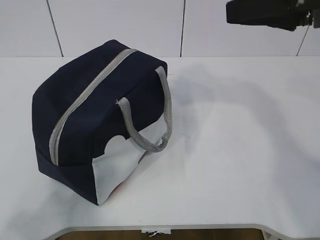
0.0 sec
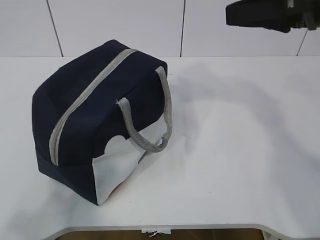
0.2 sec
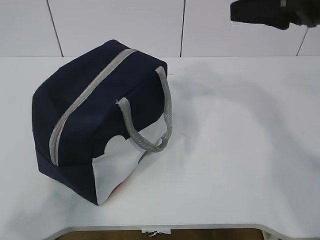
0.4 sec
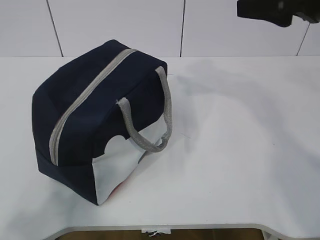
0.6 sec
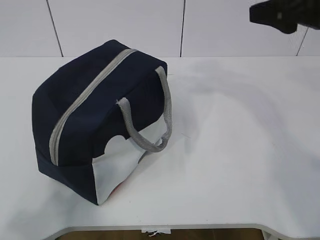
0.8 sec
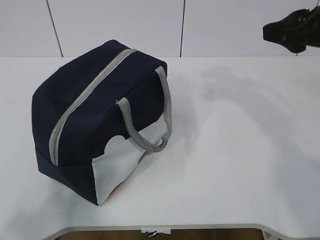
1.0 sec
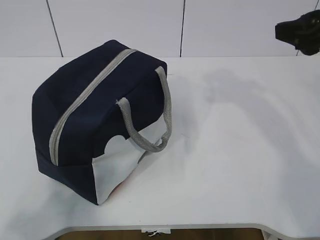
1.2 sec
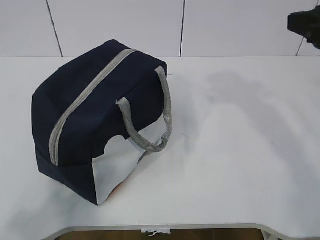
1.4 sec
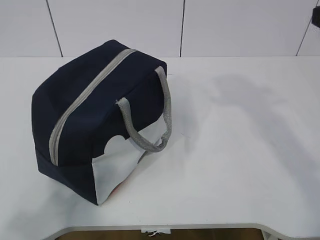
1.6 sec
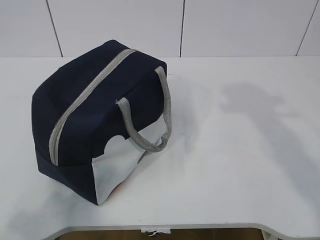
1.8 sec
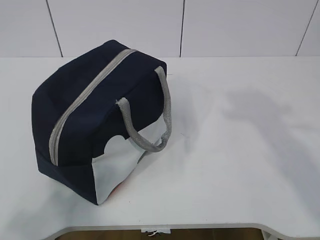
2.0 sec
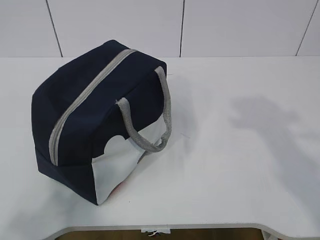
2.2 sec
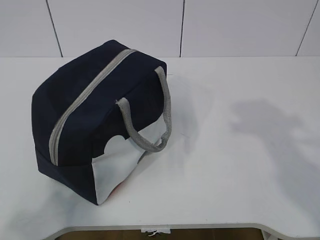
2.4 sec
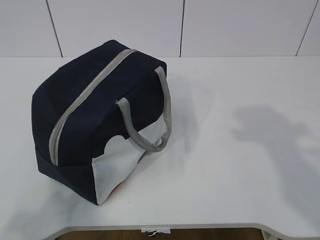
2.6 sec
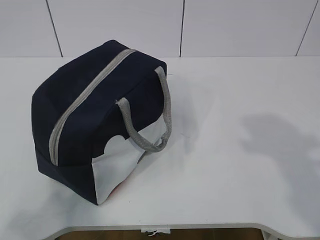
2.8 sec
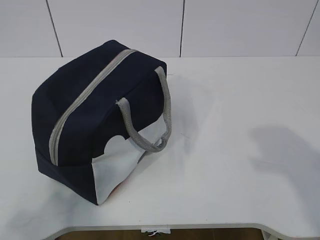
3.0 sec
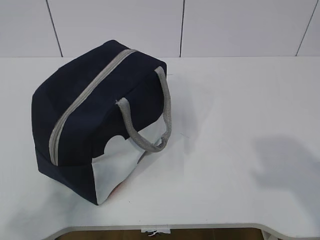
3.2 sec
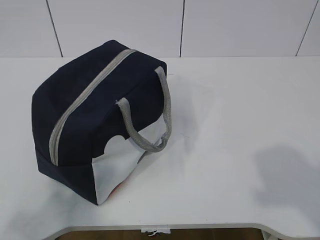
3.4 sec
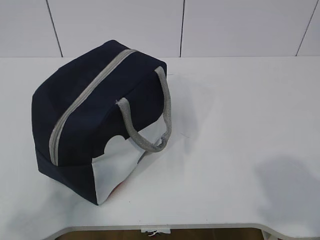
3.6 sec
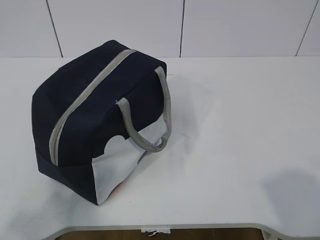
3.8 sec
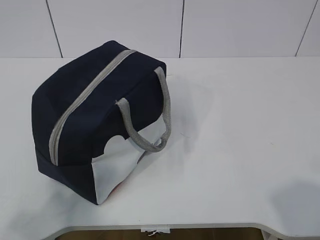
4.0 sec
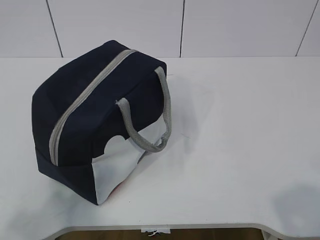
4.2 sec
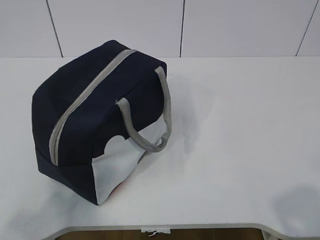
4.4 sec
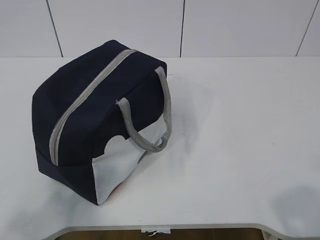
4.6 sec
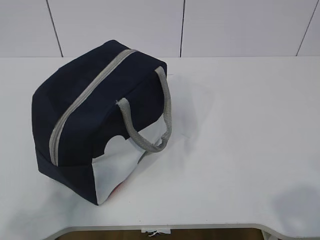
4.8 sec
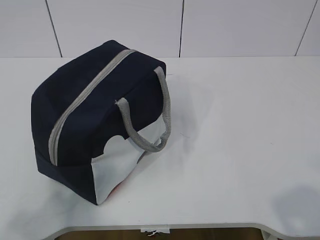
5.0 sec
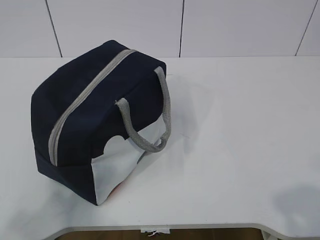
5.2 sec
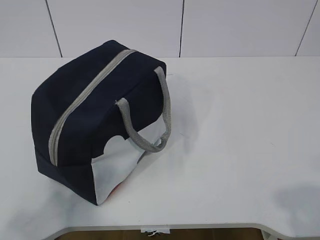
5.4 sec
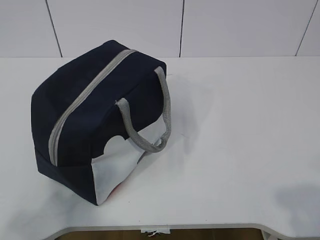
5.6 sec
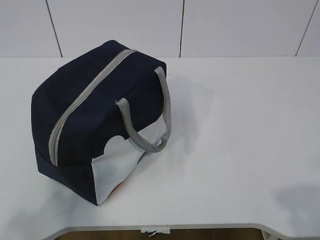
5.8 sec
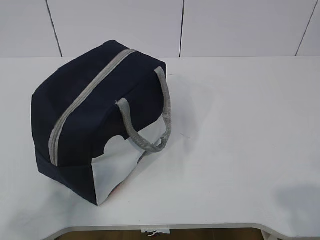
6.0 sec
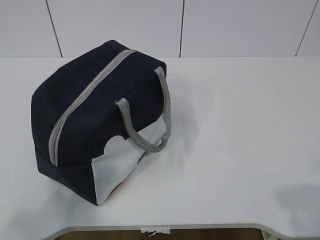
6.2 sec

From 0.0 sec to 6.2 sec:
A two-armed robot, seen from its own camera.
From 0.0 sec to 1.6 sec: The right gripper travels to the right by about 5 cm.
From 1.6 sec to 3.2 sec: The right gripper shifts some 20 cm backward.

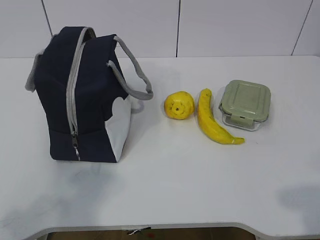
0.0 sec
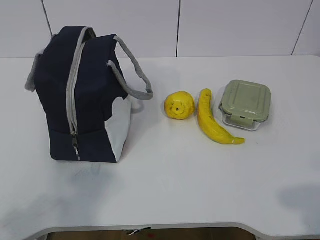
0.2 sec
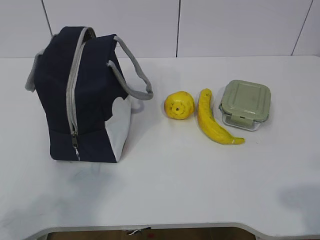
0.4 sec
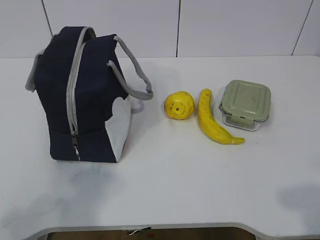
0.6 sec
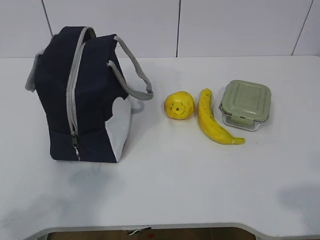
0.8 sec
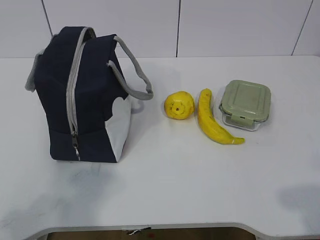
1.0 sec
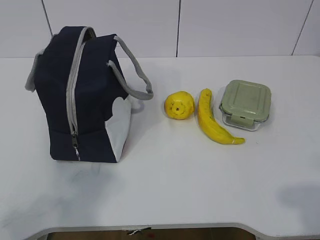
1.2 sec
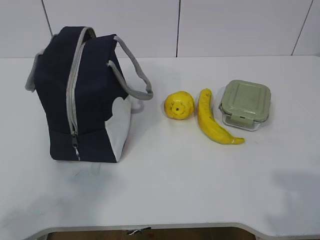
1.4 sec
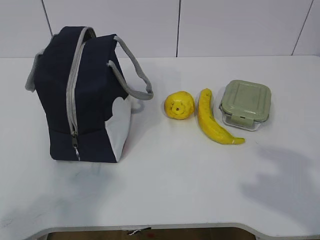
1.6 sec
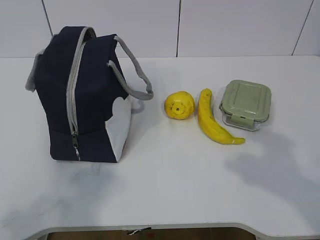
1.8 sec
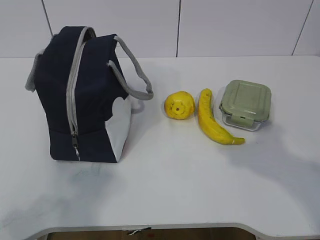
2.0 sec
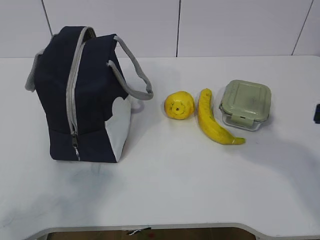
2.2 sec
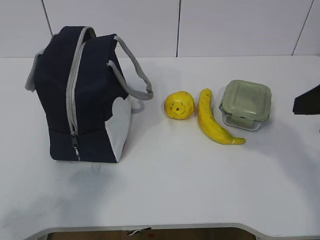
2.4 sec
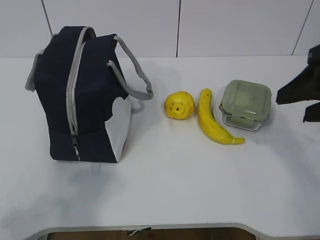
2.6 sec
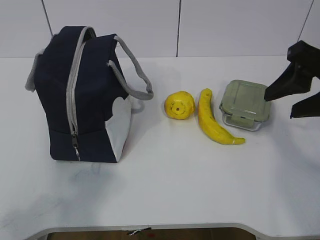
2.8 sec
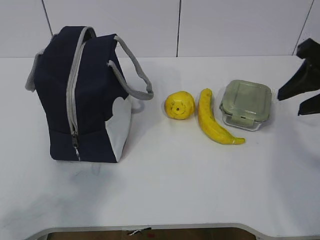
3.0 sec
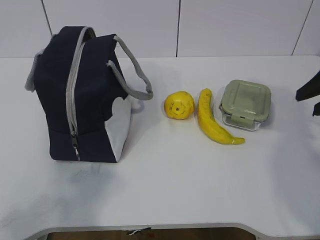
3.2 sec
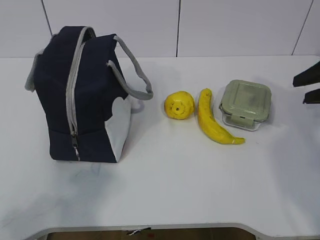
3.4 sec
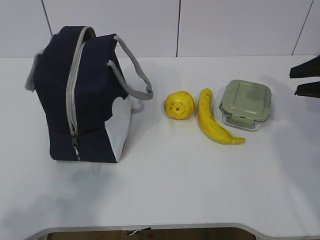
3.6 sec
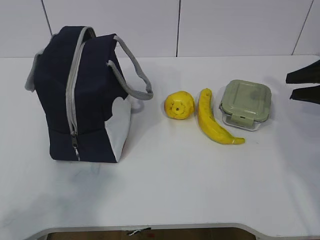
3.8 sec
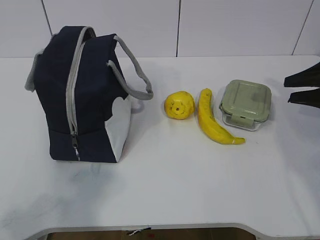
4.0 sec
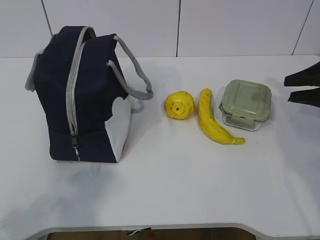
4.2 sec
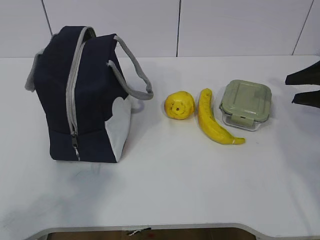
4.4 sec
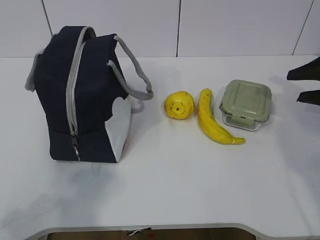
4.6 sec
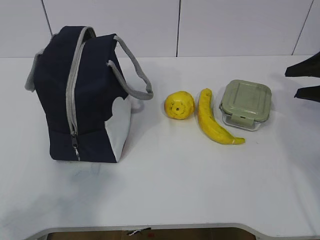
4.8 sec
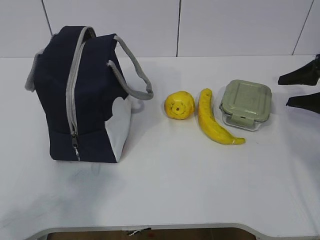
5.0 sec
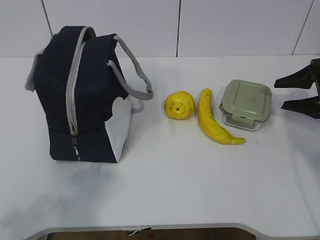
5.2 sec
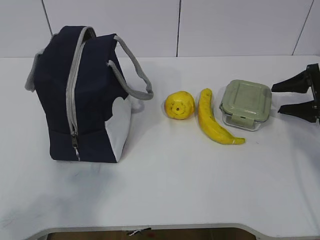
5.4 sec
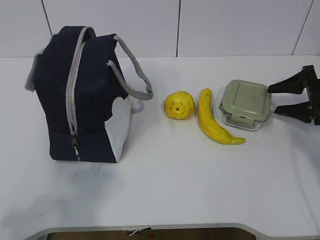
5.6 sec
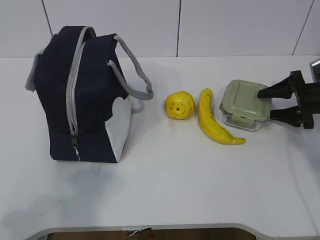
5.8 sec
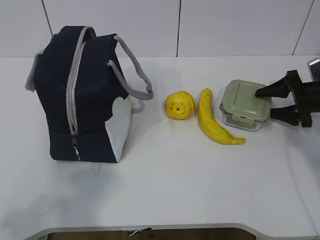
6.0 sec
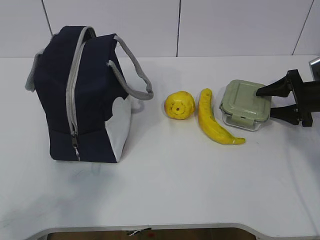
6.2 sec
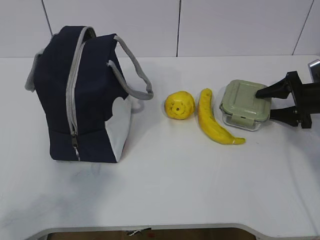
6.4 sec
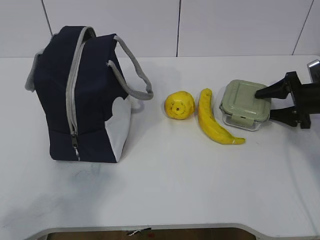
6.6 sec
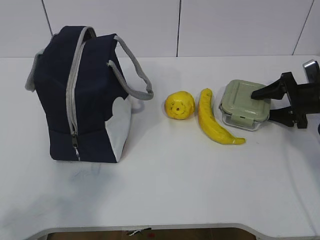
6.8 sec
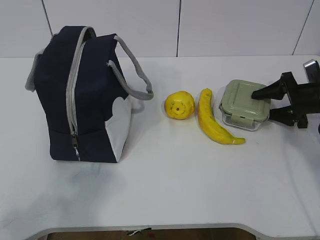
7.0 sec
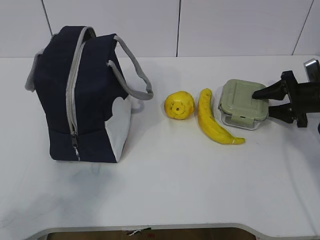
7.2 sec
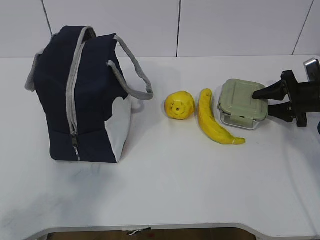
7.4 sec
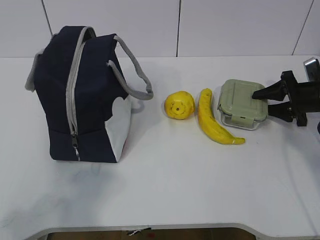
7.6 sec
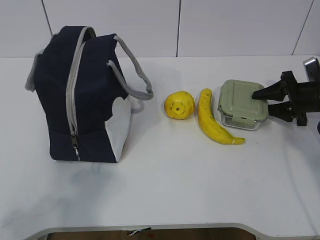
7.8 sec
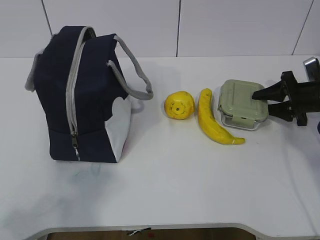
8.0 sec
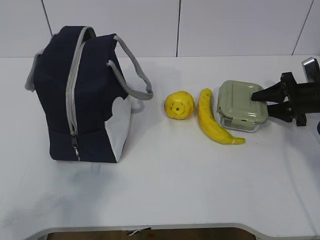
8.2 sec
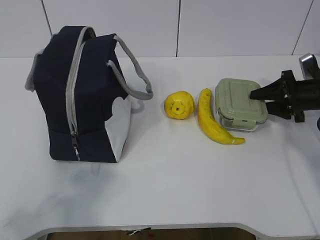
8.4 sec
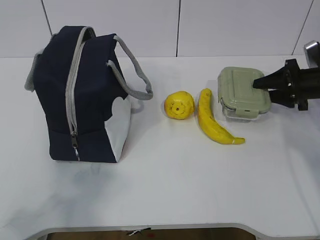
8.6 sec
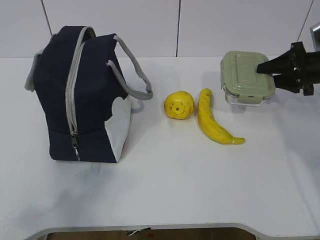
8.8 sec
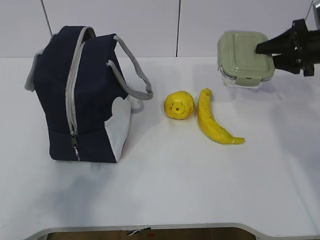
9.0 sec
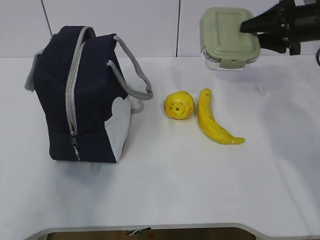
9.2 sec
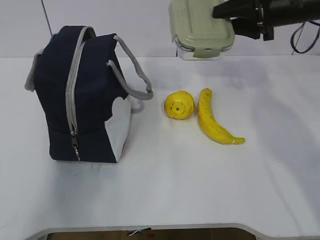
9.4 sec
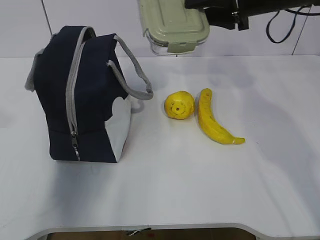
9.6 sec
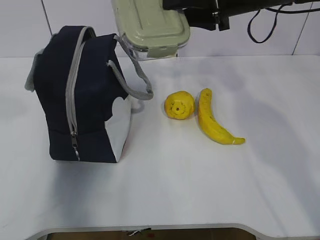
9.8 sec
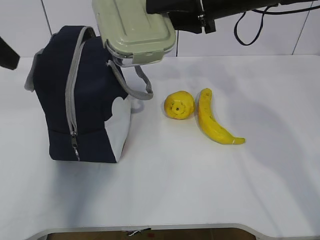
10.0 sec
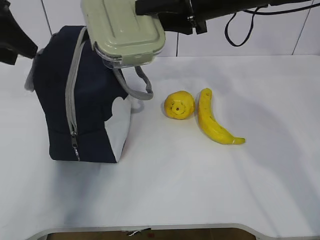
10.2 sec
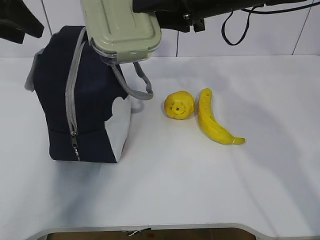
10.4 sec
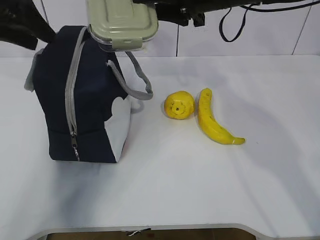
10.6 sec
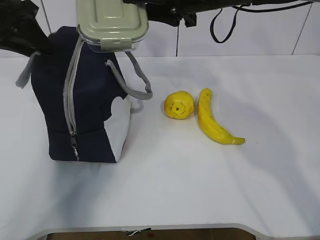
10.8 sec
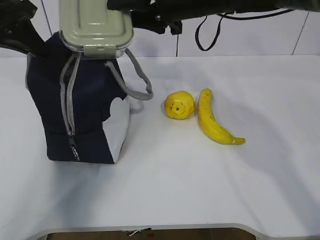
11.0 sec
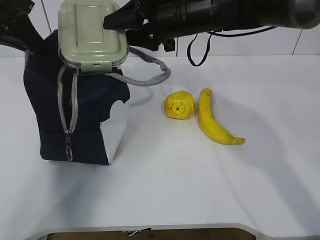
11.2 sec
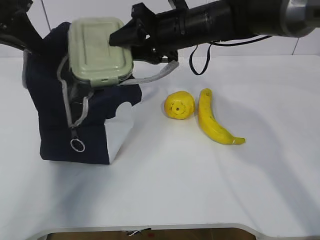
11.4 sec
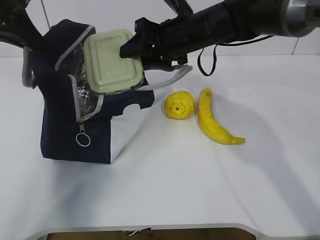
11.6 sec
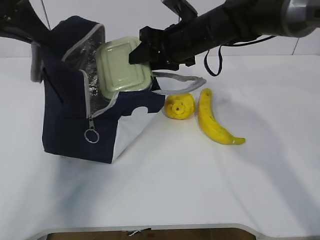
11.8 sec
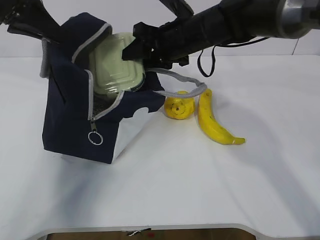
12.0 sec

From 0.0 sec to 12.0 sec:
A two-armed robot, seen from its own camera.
Step, from 0.0 sec to 7.8 sec: Grasp the box with the right gripper.
From 1.6 sec to 3.0 sec: The right gripper travels forward by about 25 cm.
From 3.0 sec to 4.4 sec: The right gripper travels to the right, downward and forward by some 15 cm.
From 4.4 sec to 6.0 sec: The right gripper is displaced downward and forward by approximately 10 cm.
From 6.0 sec to 7.6 sec: Neither gripper changes place.
From 7.6 sec to 9.0 sec: The right gripper shifts about 10 cm upward.
From 9.0 sec to 10.4 sec: The right gripper goes about 25 cm to the left and upward, while the left gripper shifts some 35 cm forward, and opens.
From 10.4 sec to 12.0 sec: The right gripper is displaced downward and to the left by some 10 cm; the left gripper closes.

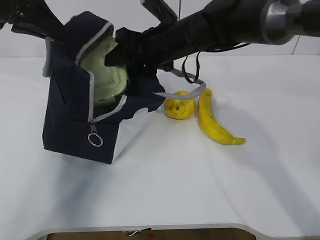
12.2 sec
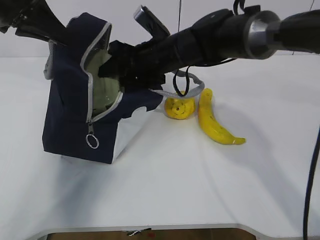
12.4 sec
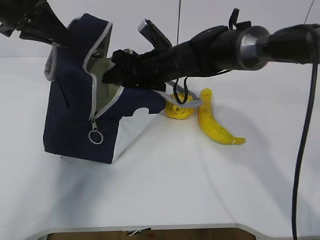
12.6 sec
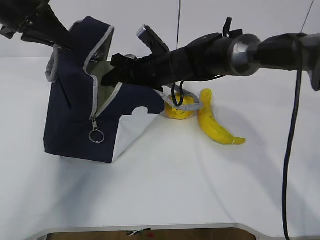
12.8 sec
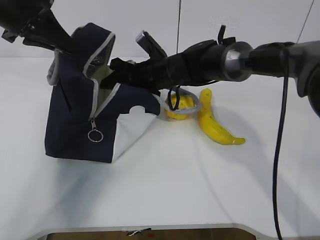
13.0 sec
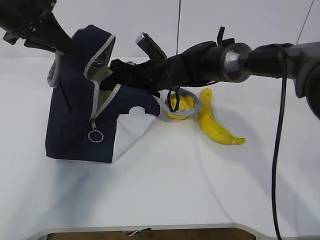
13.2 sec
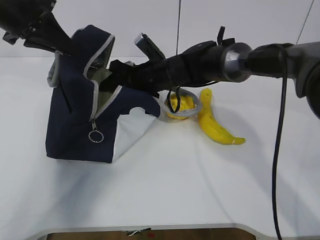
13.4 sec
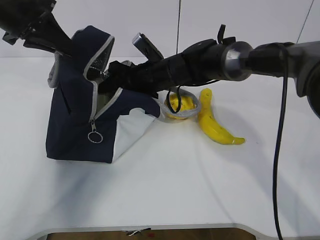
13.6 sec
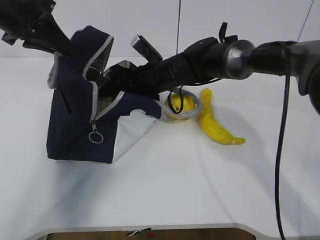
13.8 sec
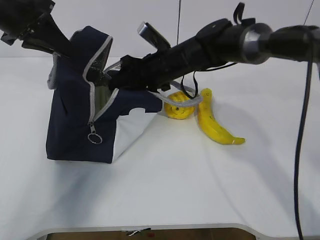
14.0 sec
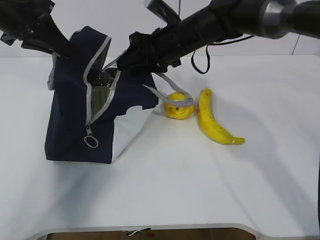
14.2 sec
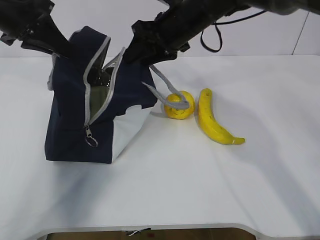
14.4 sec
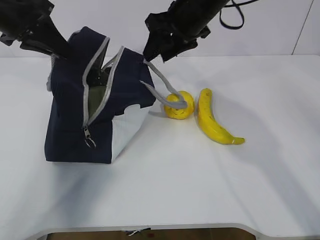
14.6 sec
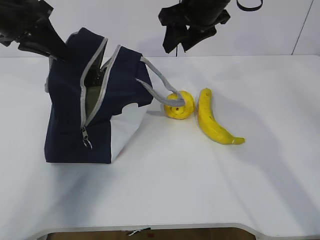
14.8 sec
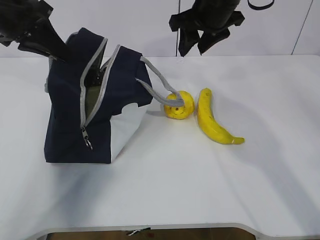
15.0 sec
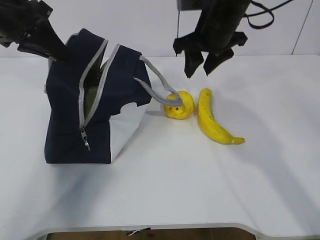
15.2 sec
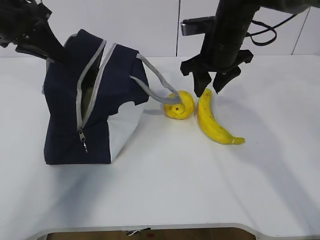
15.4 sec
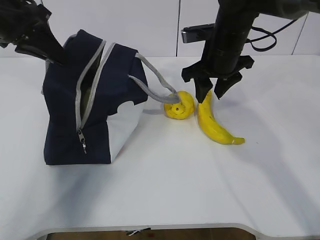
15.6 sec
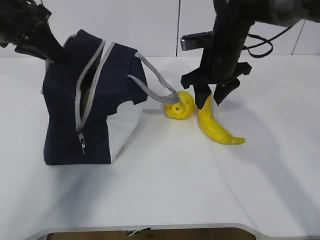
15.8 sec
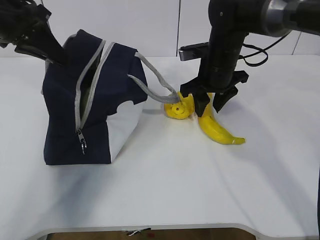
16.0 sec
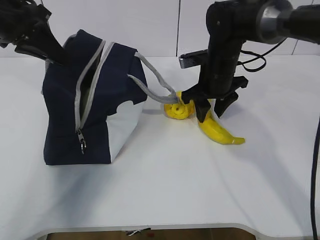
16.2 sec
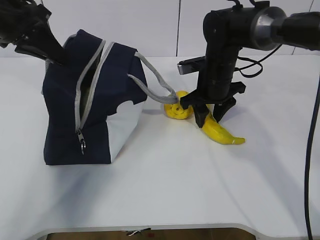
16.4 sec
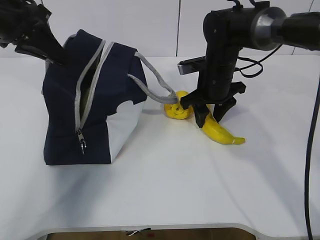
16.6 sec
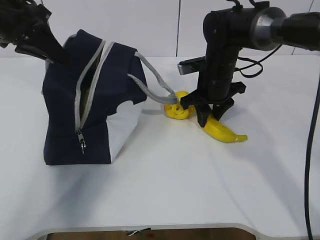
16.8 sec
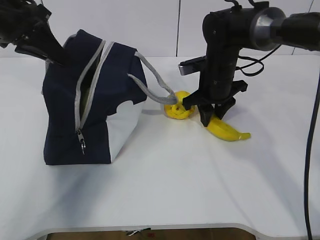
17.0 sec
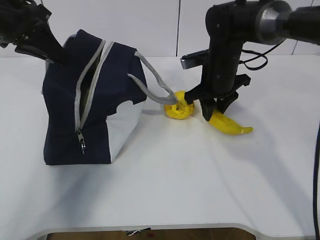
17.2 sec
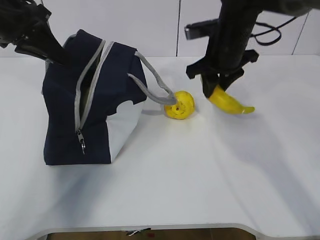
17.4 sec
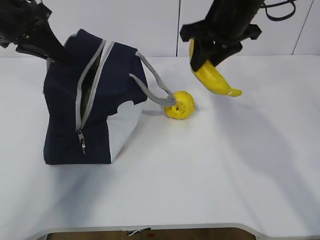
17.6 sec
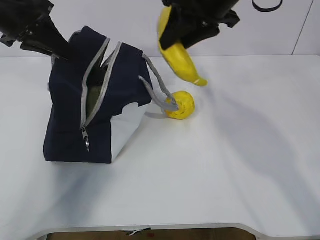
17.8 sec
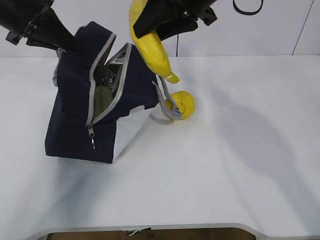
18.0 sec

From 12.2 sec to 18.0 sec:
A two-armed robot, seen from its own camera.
Step, from 12.2 sec to 14.6 sec: Place the box into the package with the right gripper.
Step, from 14.8 sec to 16.8 sec: Grasp the banana with the right gripper.
From 12.2 sec to 13.6 sec: The right gripper is displaced downward by approximately 10 cm.
From 13.6 sec to 15.0 sec: The right gripper moves upward and to the right, some 20 cm.
From 15.0 sec to 16.6 sec: The right gripper shifts about 15 cm downward.
From 16.6 sec to 18.0 sec: The right gripper shifts about 20 cm upward.
